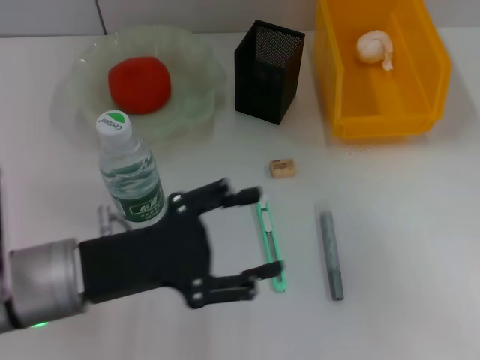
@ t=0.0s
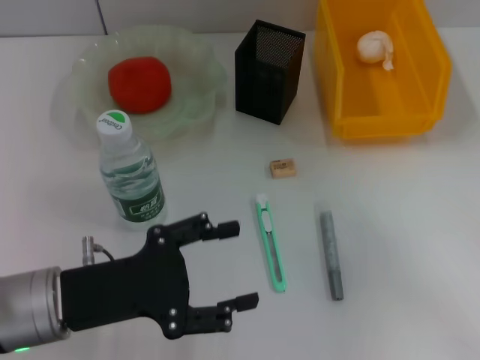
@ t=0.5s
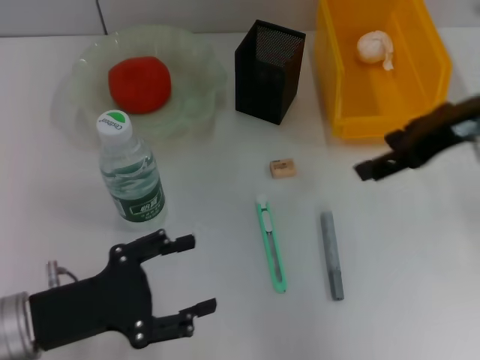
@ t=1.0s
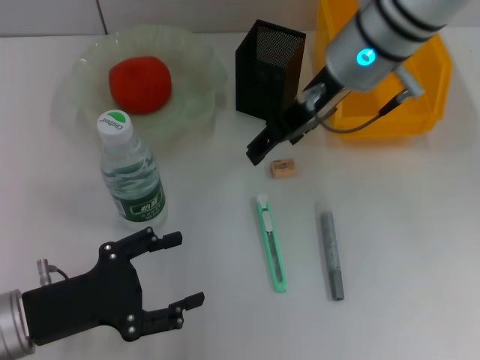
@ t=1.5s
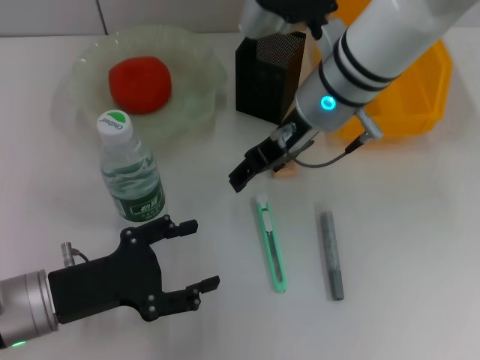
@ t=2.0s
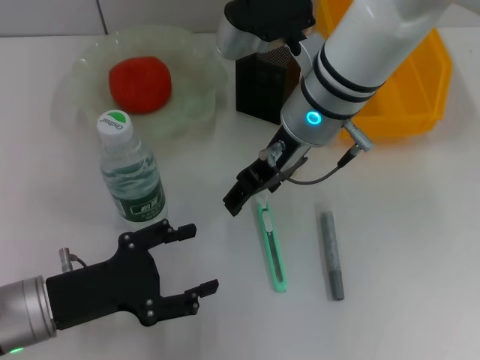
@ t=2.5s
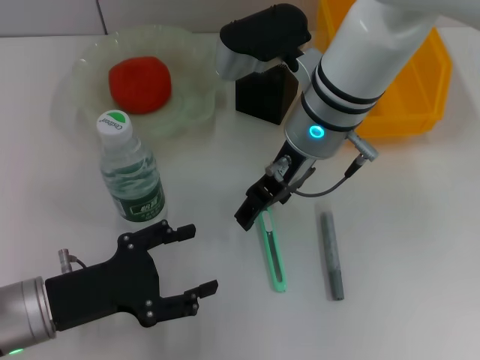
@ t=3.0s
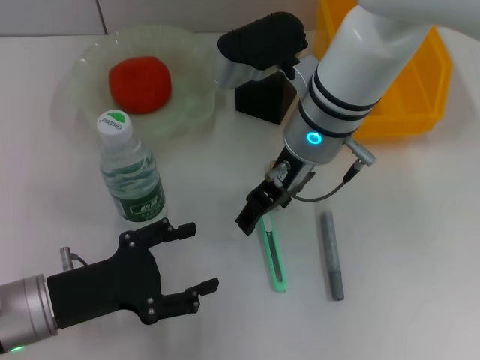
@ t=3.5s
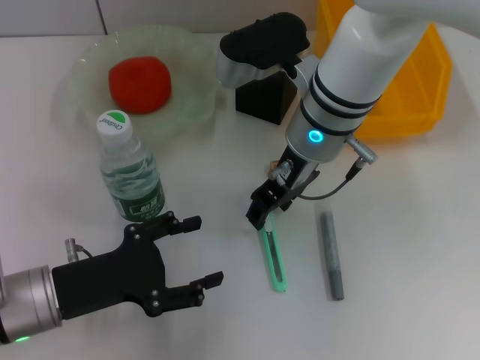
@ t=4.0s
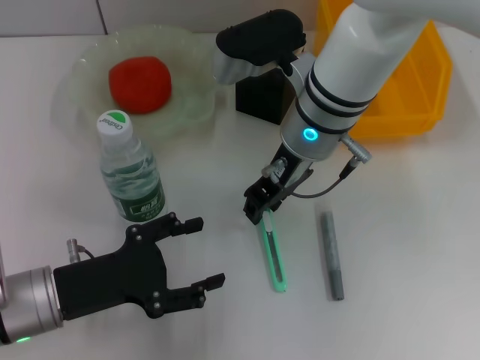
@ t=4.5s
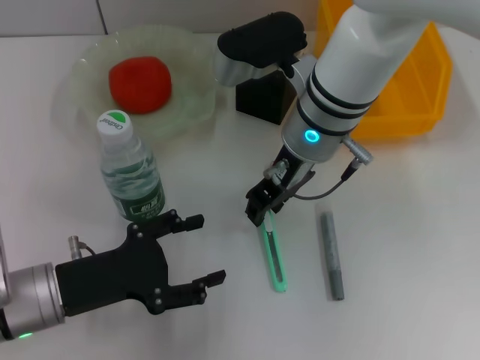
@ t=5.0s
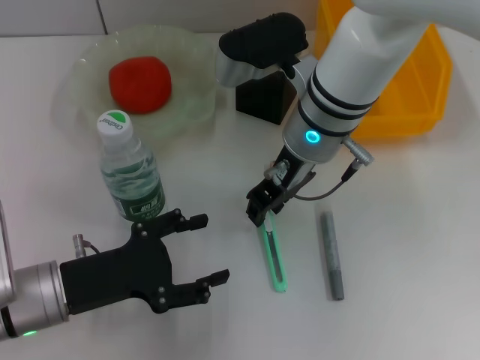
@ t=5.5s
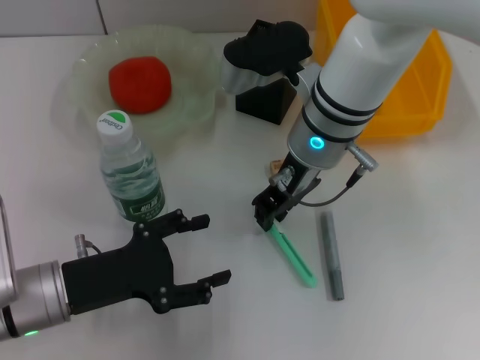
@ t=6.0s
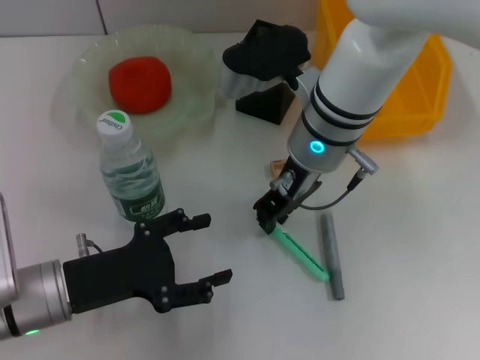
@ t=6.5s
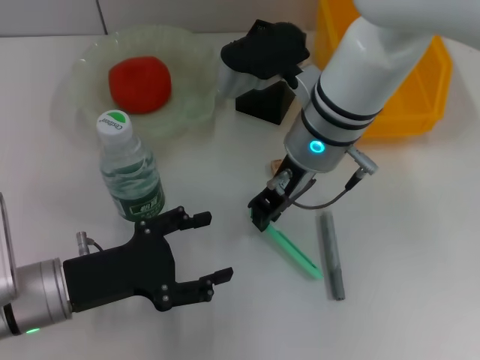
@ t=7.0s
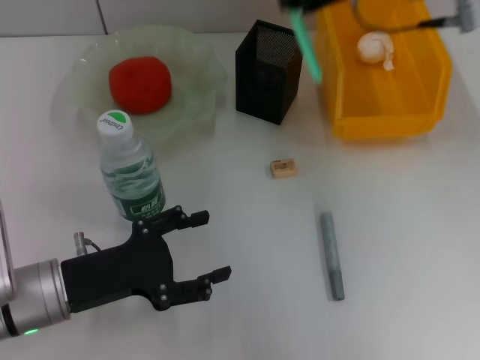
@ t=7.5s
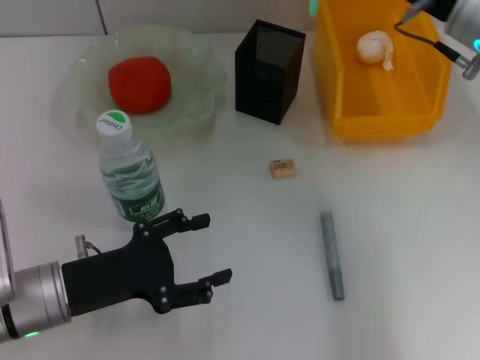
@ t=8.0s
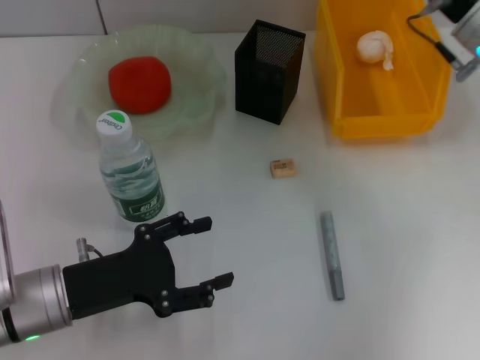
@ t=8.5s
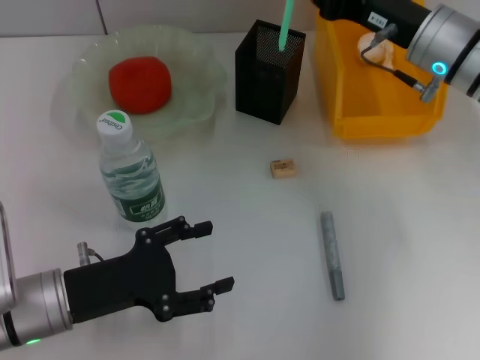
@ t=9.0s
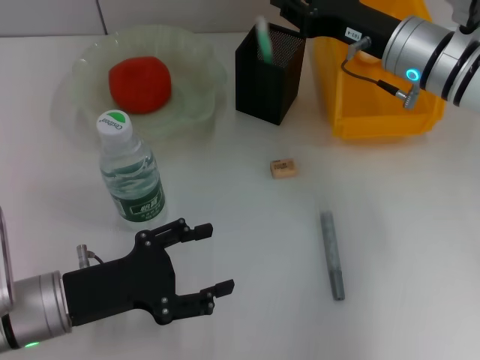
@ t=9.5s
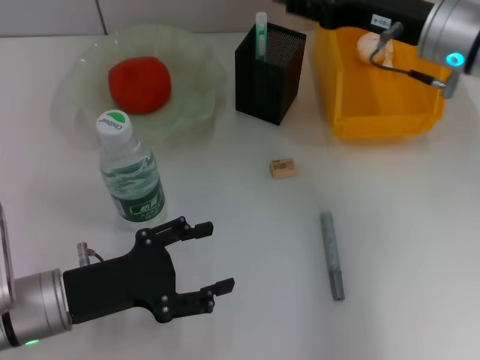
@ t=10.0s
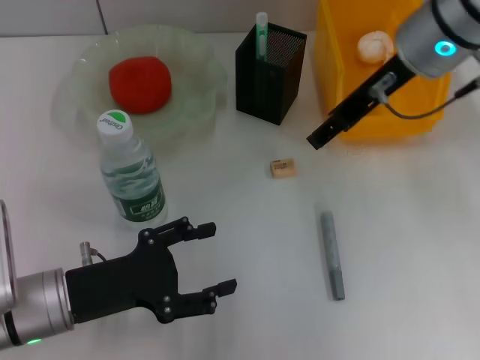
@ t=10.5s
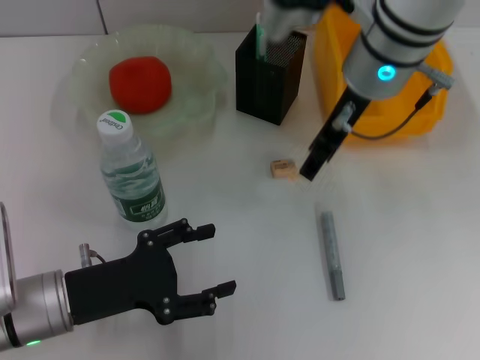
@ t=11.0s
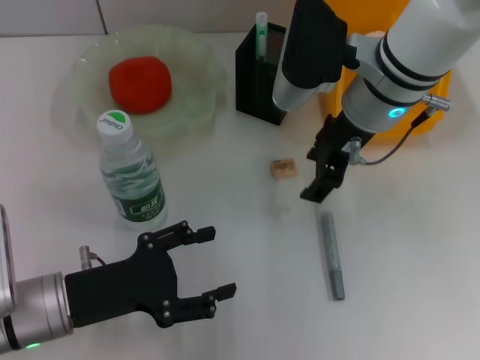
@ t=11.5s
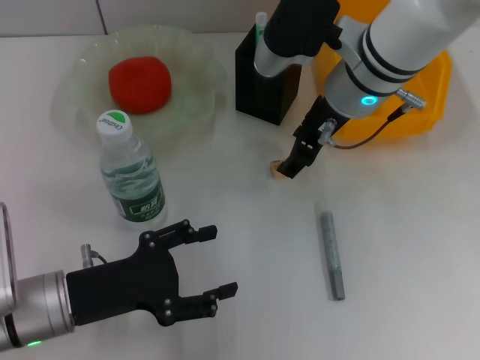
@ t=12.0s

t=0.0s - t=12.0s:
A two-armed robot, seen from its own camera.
Step, t=0.0s - t=6.5s: Grab the blue utility knife with the right hand.
Step, t=7.0s - t=9.5s: Place the blue utility knife into the pen holder with the right hand.
t=0.0s - t=2.0s: The left gripper travels downward by about 5 cm; the right gripper moves to the left and forward, about 35 cm.
t=2.0s - t=4.0s: The grippers stay close to where they were, moving slightly.
t=4.0s - t=6.0s: The right gripper closes.
t=6.0s - t=8.0s: The right gripper moves to the right, approximately 15 cm.
t=8.0s - t=10.0s: The right gripper opens its fingers.
t=10.0s - t=12.0s: The right gripper heads to the left, covering approximately 10 cm.

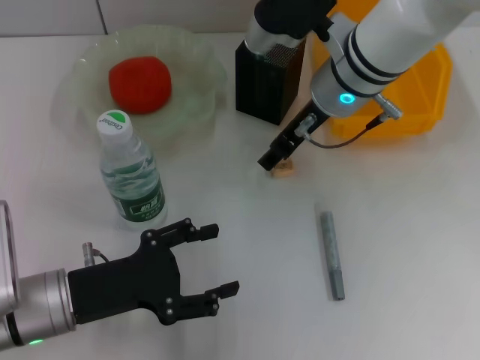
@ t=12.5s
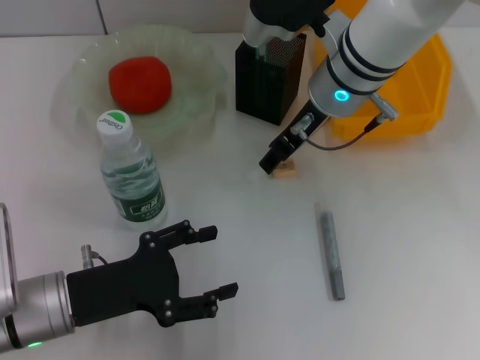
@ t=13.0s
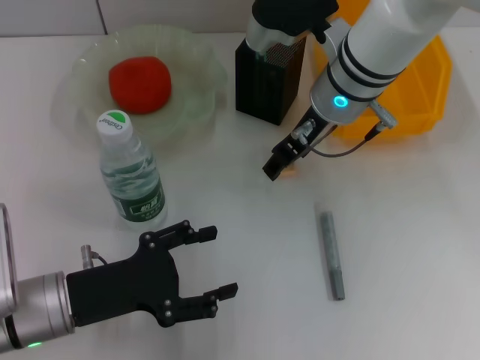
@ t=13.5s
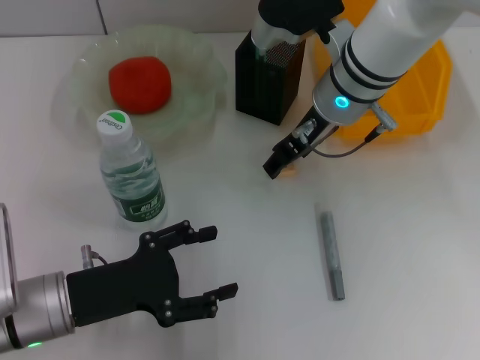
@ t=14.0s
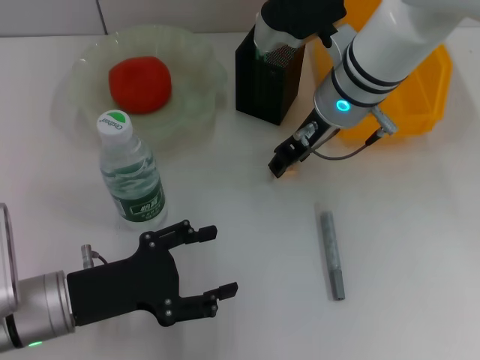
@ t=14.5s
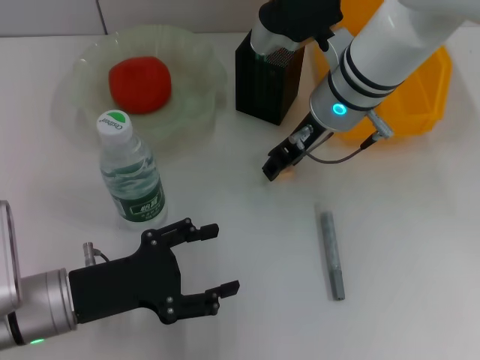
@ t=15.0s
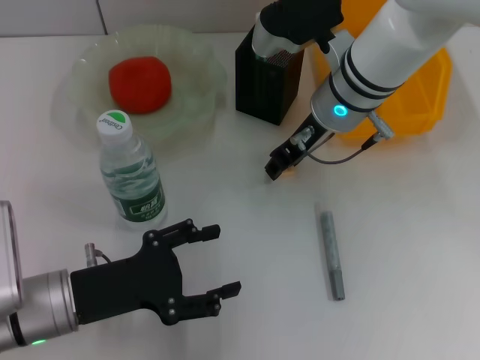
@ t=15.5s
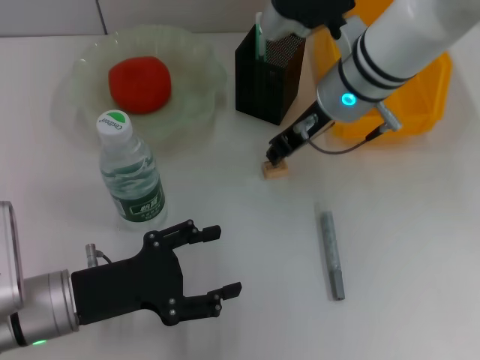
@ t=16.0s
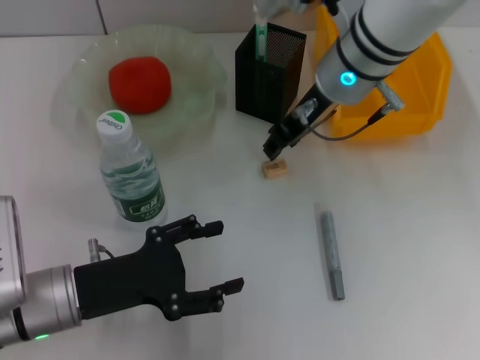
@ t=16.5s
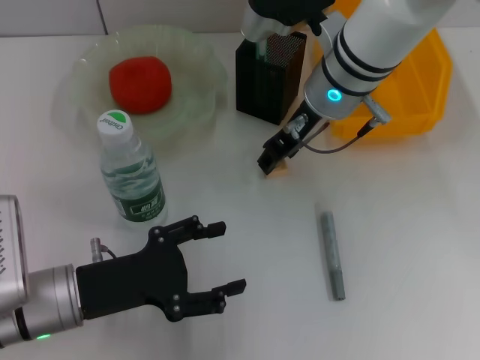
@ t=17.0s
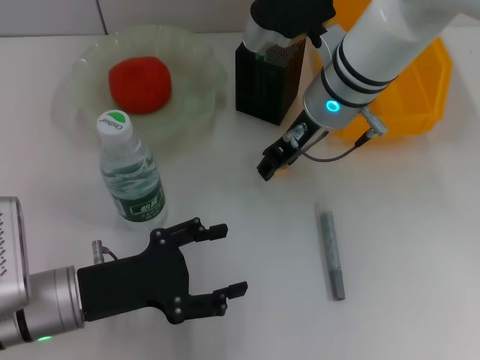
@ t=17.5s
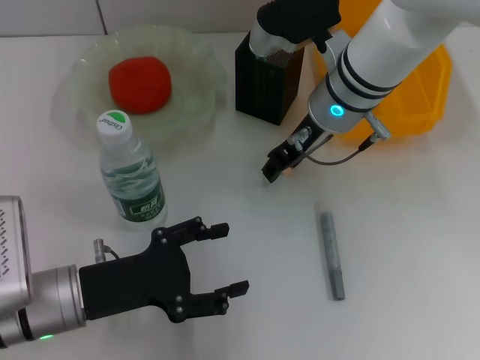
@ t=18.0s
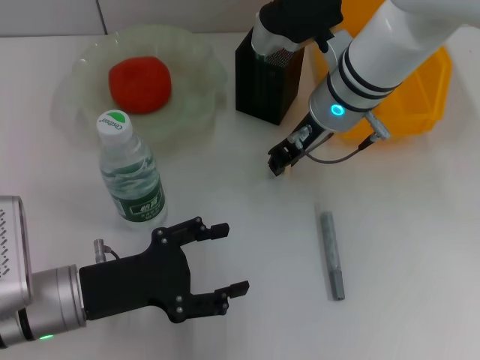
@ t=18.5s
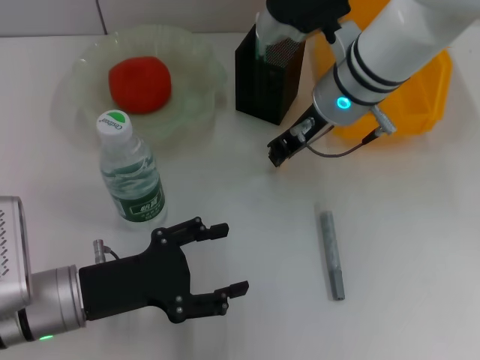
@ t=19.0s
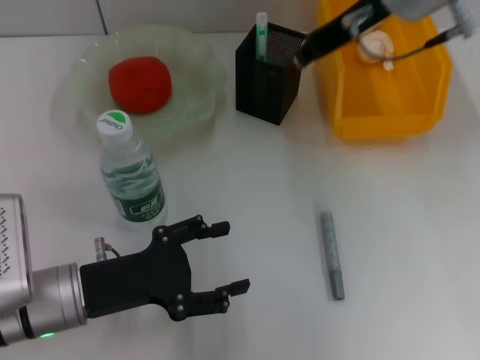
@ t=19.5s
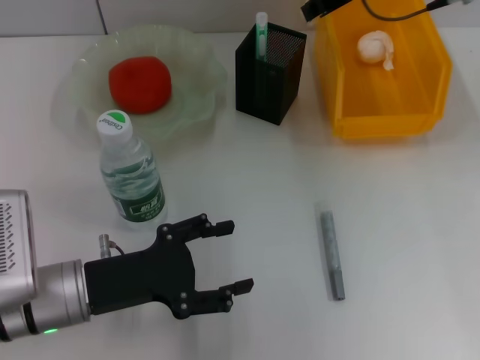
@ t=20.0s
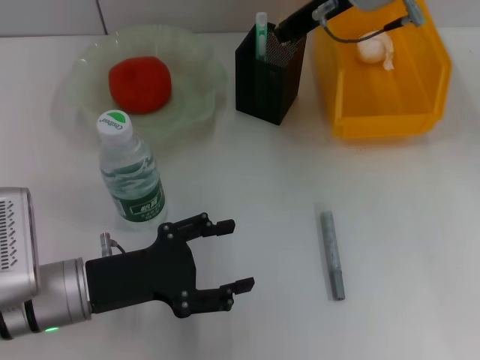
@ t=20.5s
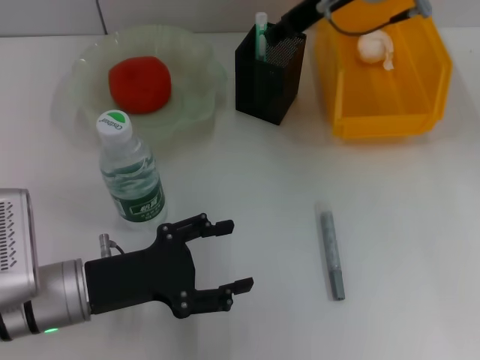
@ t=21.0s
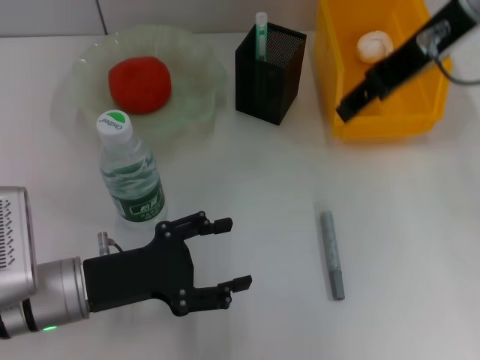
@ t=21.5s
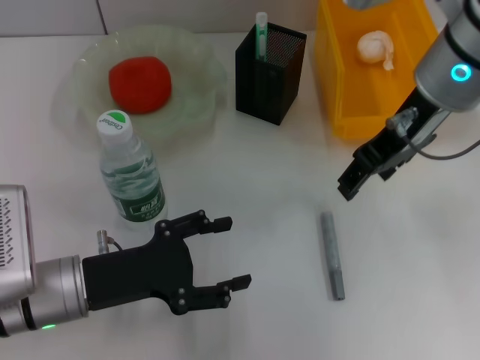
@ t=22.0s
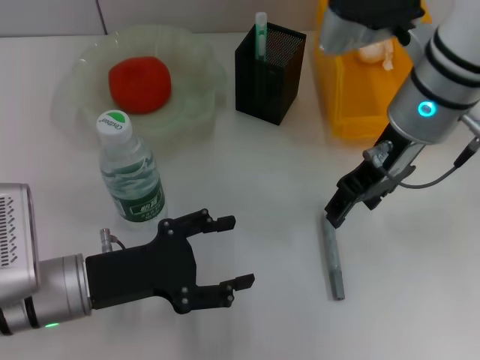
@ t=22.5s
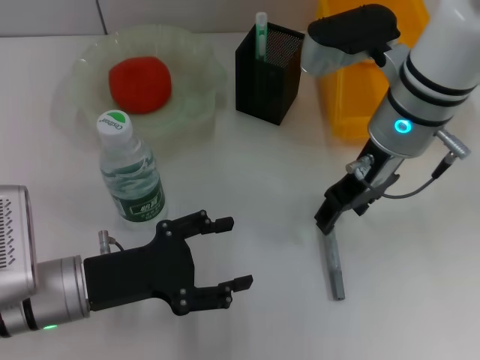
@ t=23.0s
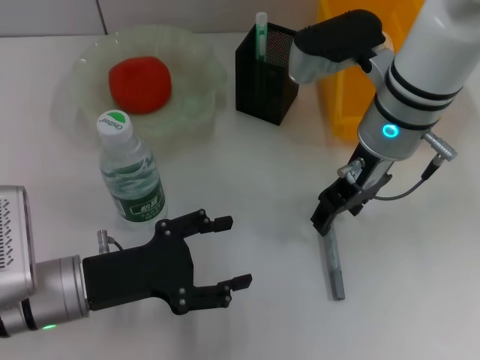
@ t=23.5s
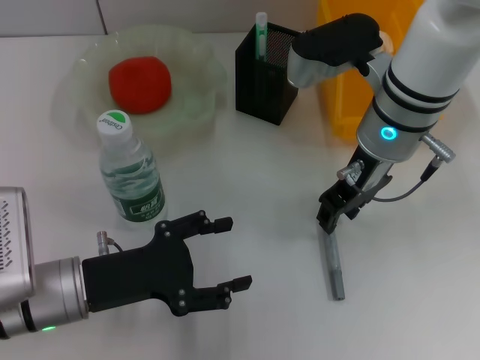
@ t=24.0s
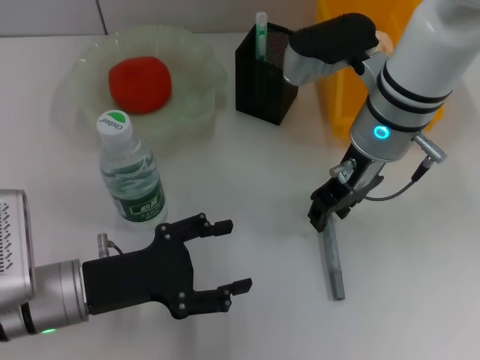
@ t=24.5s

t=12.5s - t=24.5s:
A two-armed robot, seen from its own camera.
Step, t=12.5s - t=18.5s: Grab the eraser with the right hand.
Step, t=19.0s - t=21.0s: Put the eraser into the pen holder with the right hand.
t=12.5s - t=14.5s: The grippers make only small movements.
t=14.5s - t=16.5s: The right gripper closes.
t=16.5s - t=18.5s: There are only small adjustments of the grippers.
t=18.5s - t=20.5s: The right gripper moves upward, approximately 10 cm.
t=20.5s - t=22.5s: The right gripper shifts some 10 cm backward, travels upward and back again, approximately 5 cm each way, and opens.
t=22.5s - t=24.5s: The grippers stay close to where they were, moving slightly.

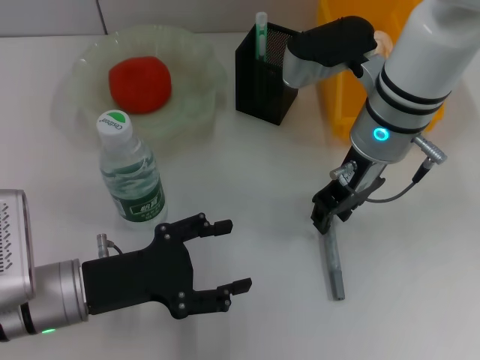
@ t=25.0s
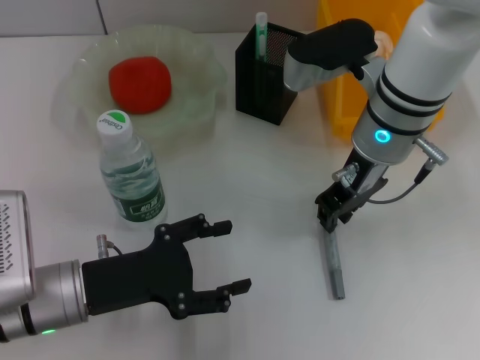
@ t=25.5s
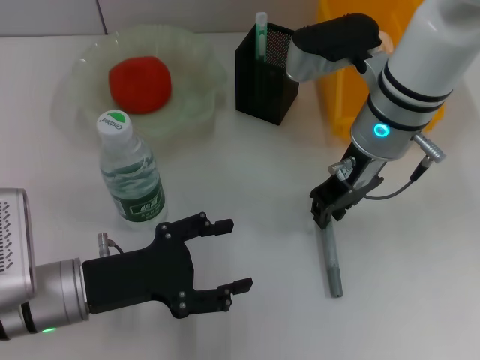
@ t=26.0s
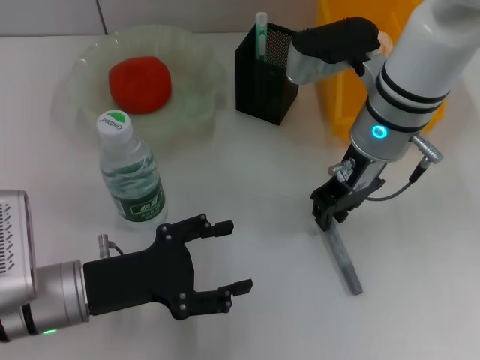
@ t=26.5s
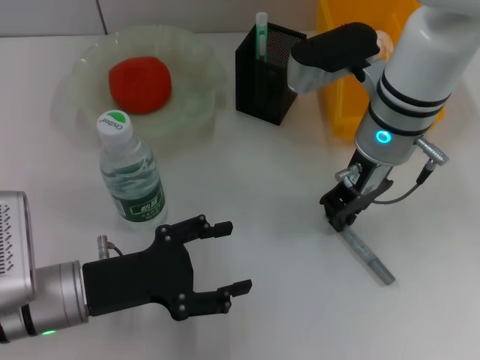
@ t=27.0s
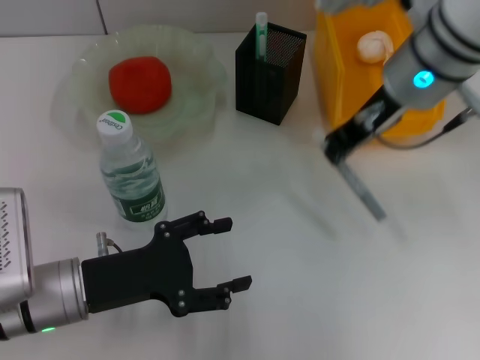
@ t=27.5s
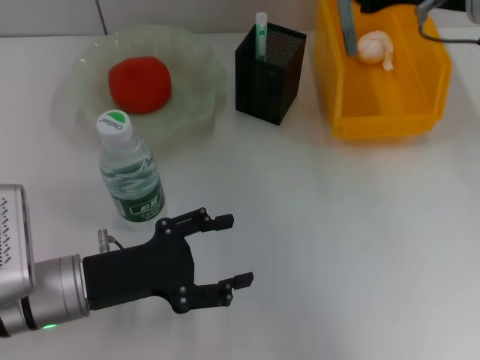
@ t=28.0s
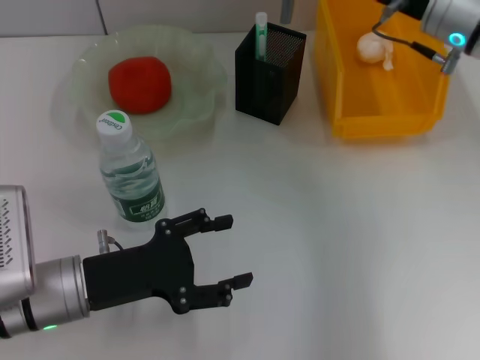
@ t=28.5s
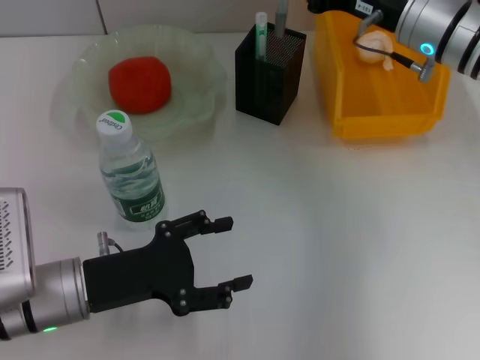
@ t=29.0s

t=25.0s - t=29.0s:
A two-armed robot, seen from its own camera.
t=25.0s - t=27.0s: The right gripper closes its fingers.
t=27.0s - t=29.0s: The right gripper shifts approximately 5 cm to the right, and moves roughly 10 cm upward and comes back.
